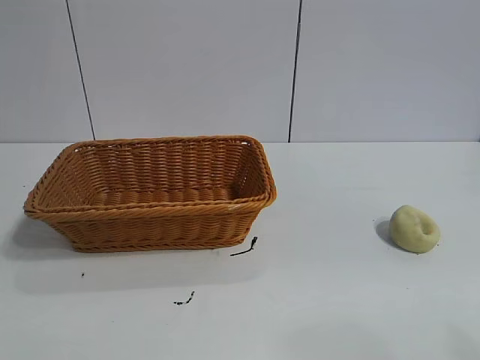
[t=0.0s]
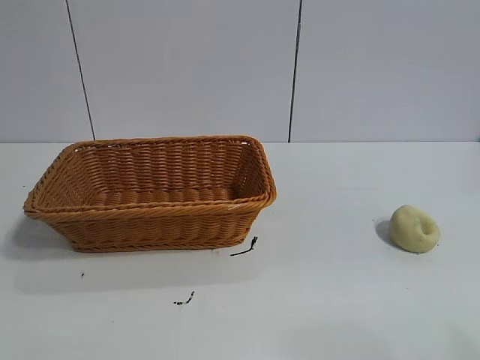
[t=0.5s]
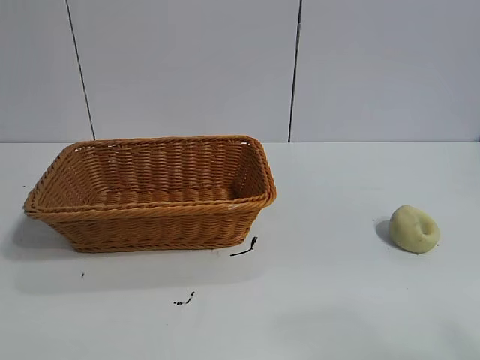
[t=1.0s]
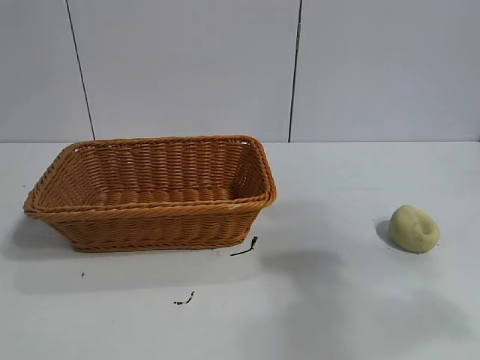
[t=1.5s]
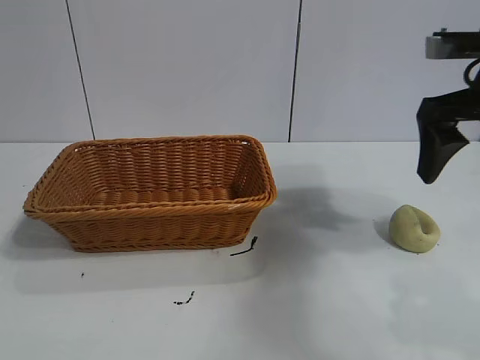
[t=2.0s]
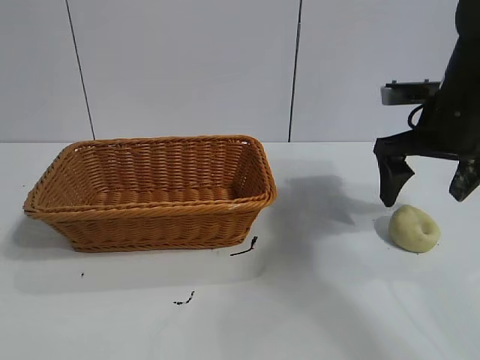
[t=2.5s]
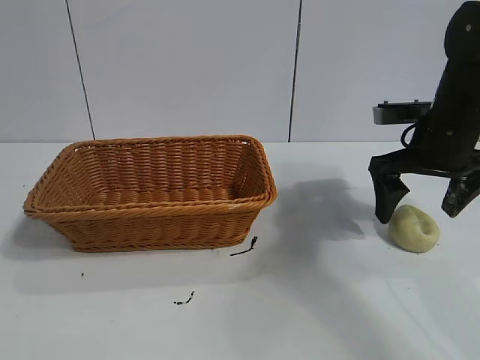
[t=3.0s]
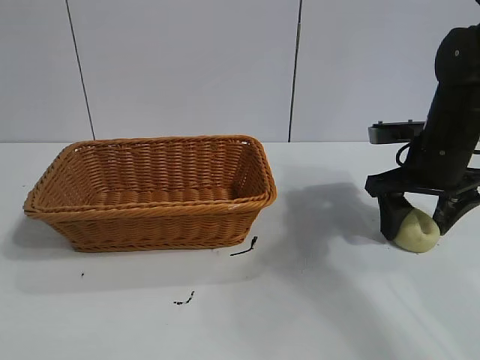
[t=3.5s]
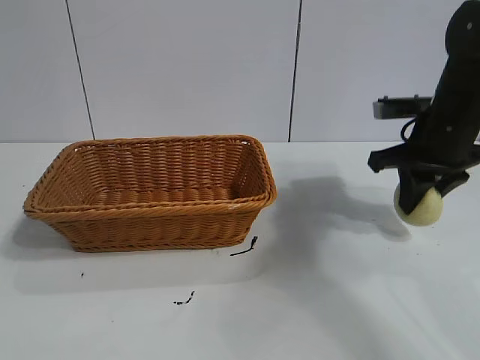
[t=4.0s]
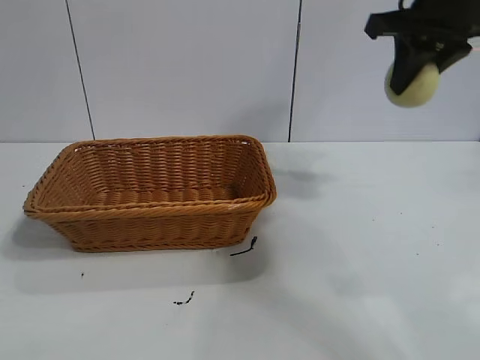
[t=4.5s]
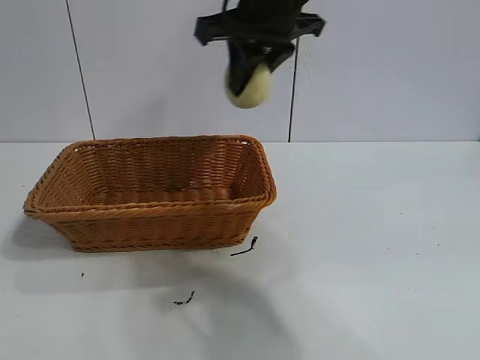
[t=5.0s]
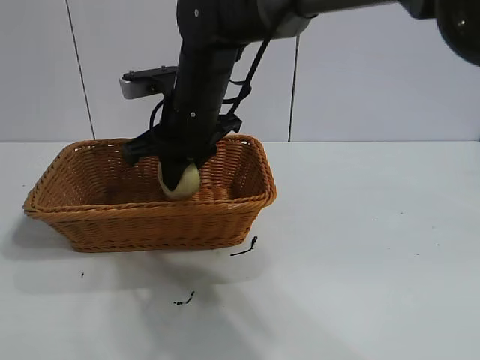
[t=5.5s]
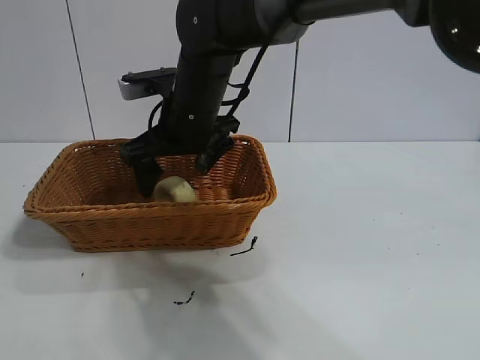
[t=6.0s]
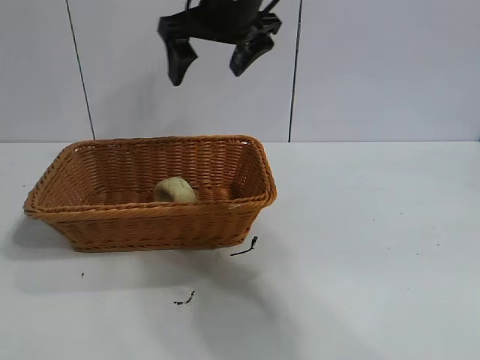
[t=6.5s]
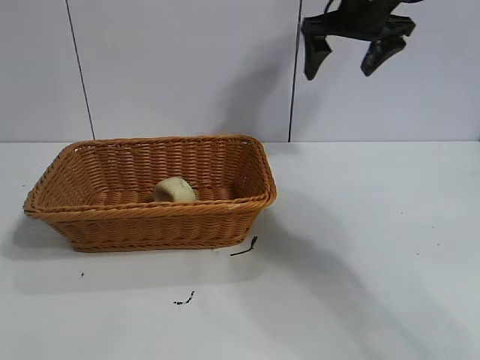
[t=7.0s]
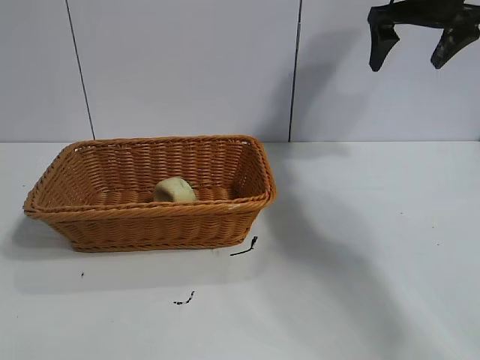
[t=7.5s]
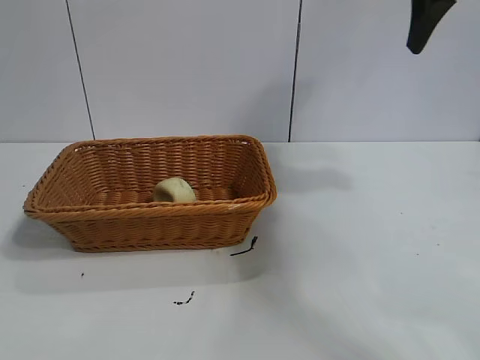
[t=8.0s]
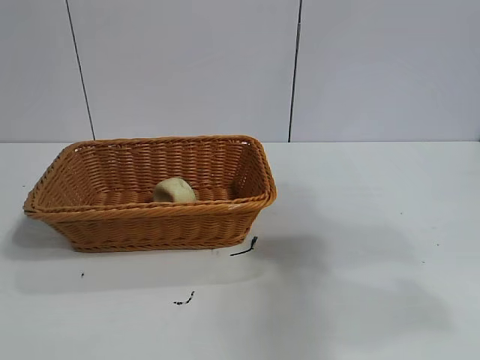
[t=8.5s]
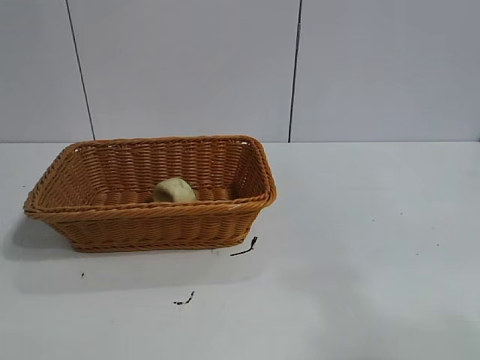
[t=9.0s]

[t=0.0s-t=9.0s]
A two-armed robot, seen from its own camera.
Task of the whole recording: pick up the egg yolk pastry and put it into the basket.
Step, t=1.0s to t=3.5s: Grasp egg yolk pastry with right gripper.
Step, t=4.0s to t=5.5s: Place the egg yolk pastry in the basket with right gripper.
